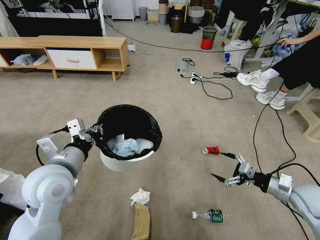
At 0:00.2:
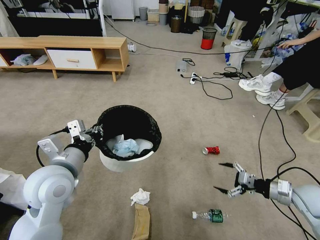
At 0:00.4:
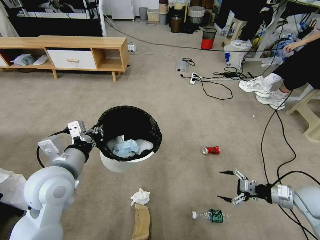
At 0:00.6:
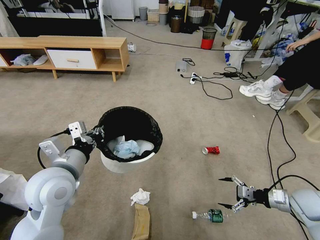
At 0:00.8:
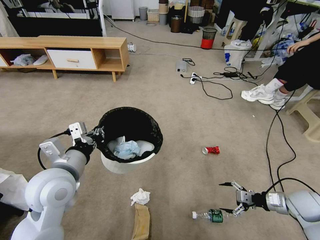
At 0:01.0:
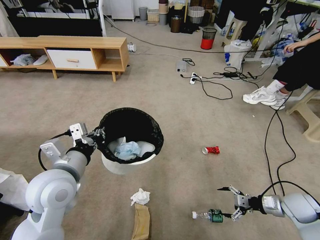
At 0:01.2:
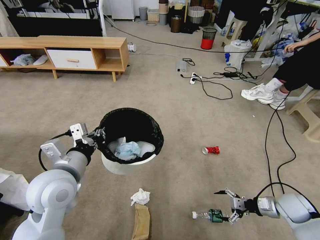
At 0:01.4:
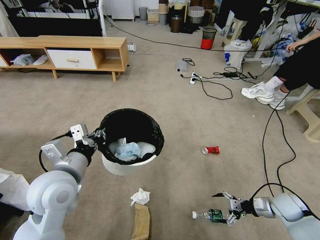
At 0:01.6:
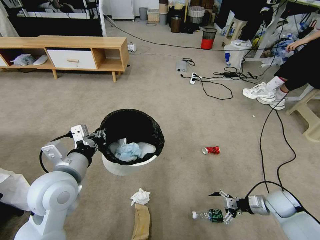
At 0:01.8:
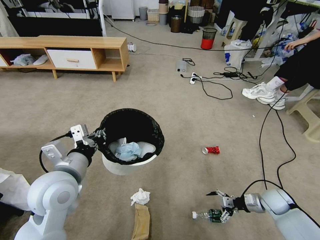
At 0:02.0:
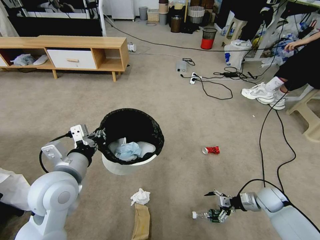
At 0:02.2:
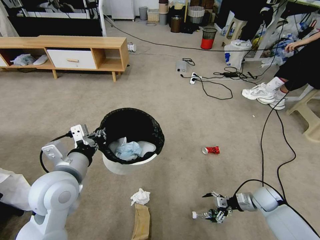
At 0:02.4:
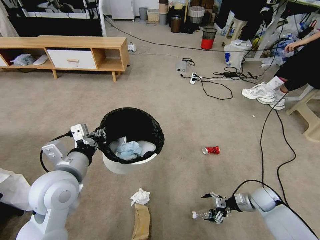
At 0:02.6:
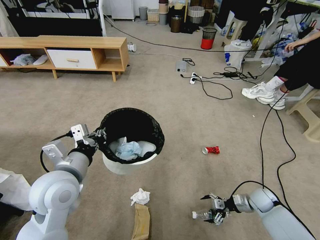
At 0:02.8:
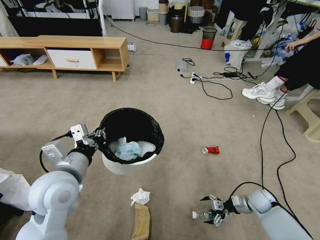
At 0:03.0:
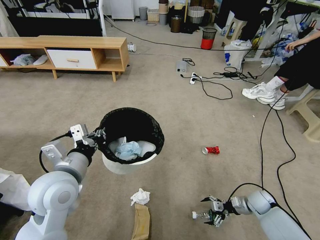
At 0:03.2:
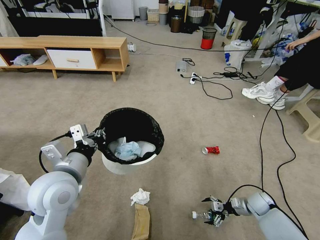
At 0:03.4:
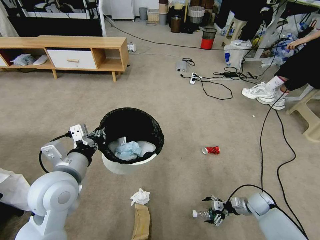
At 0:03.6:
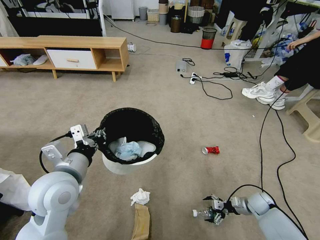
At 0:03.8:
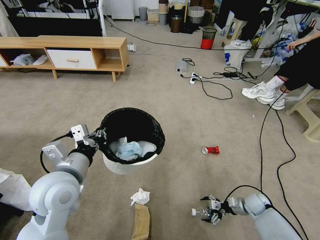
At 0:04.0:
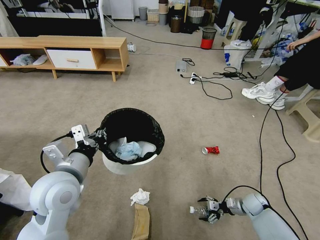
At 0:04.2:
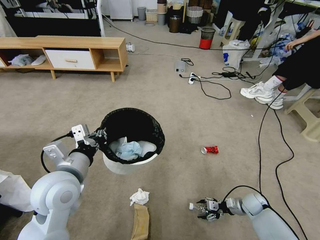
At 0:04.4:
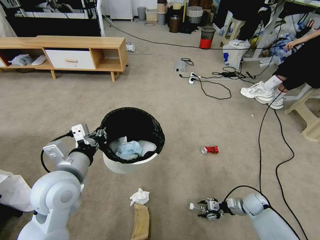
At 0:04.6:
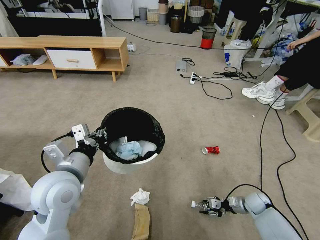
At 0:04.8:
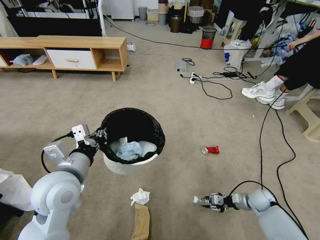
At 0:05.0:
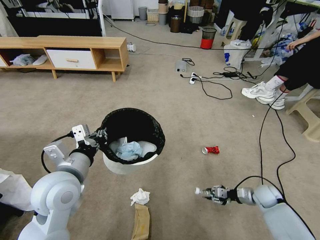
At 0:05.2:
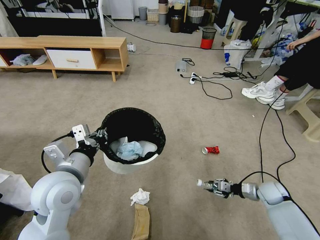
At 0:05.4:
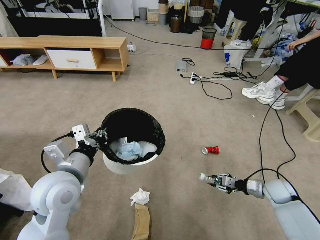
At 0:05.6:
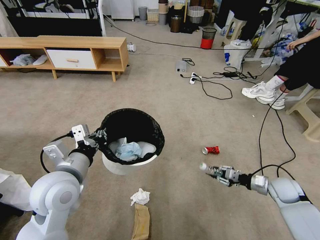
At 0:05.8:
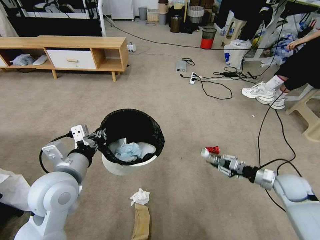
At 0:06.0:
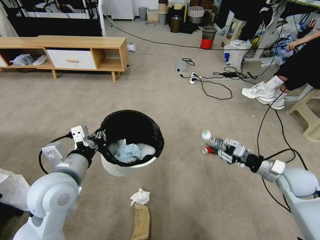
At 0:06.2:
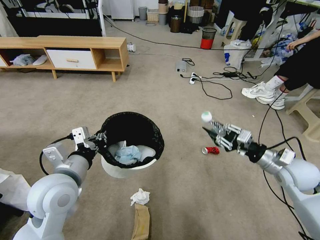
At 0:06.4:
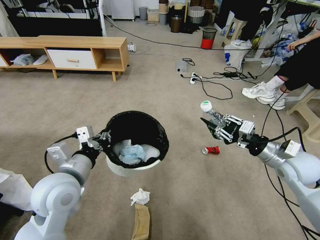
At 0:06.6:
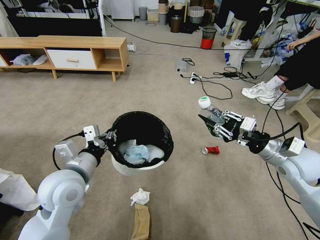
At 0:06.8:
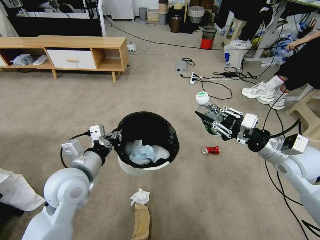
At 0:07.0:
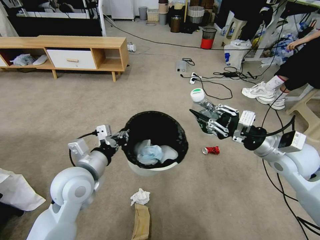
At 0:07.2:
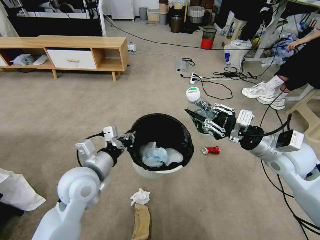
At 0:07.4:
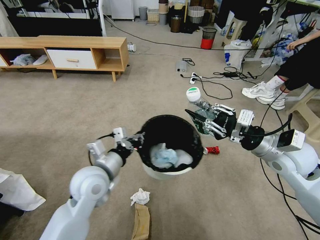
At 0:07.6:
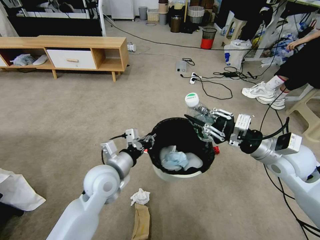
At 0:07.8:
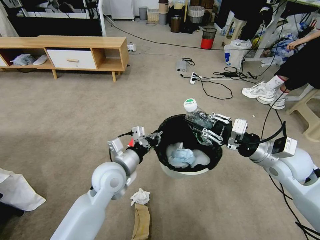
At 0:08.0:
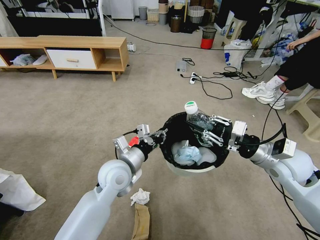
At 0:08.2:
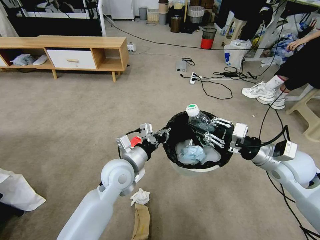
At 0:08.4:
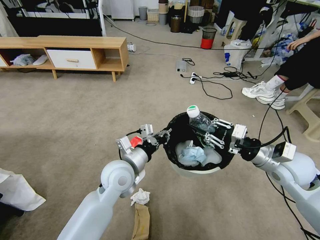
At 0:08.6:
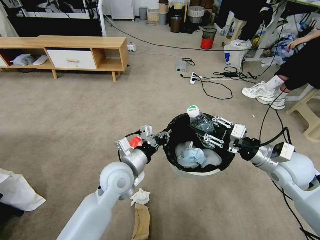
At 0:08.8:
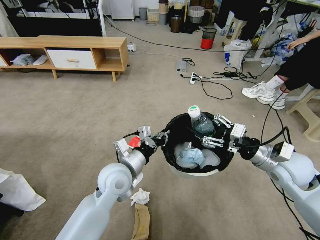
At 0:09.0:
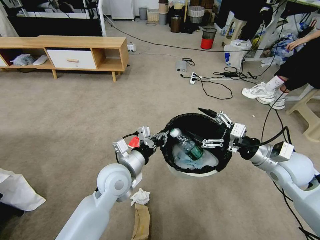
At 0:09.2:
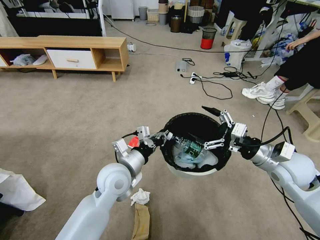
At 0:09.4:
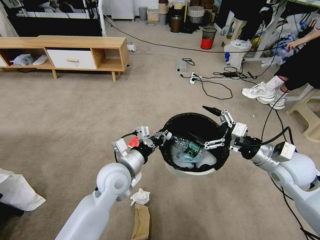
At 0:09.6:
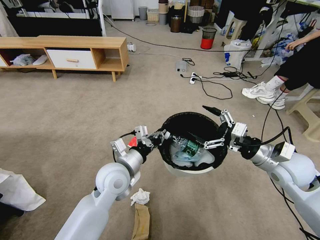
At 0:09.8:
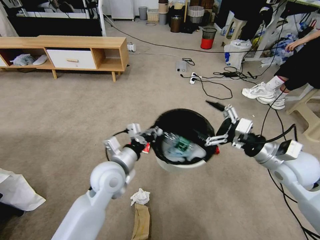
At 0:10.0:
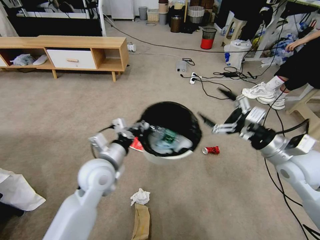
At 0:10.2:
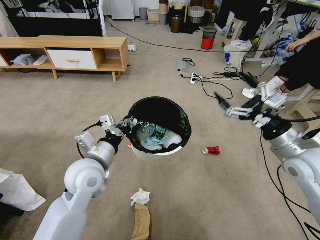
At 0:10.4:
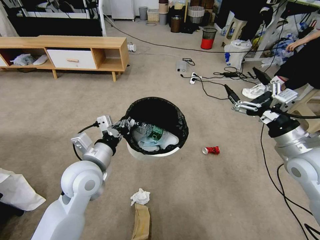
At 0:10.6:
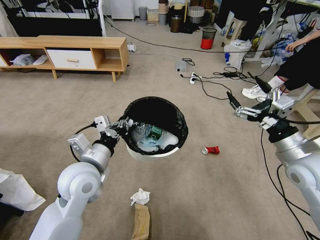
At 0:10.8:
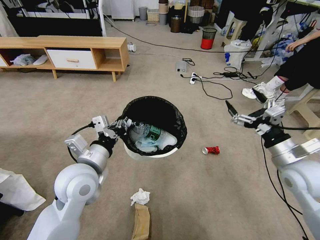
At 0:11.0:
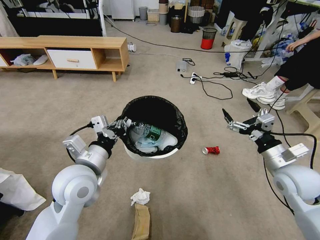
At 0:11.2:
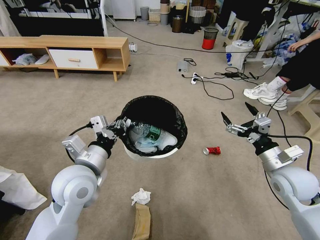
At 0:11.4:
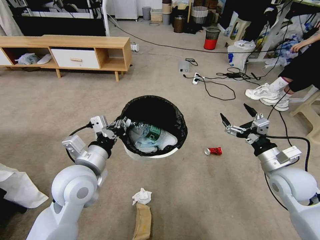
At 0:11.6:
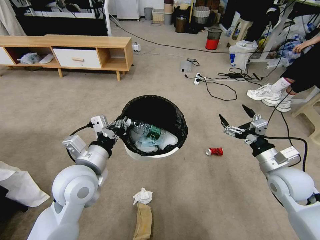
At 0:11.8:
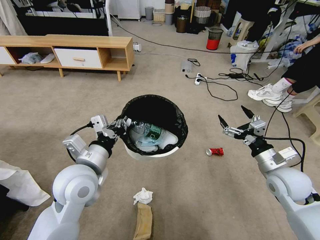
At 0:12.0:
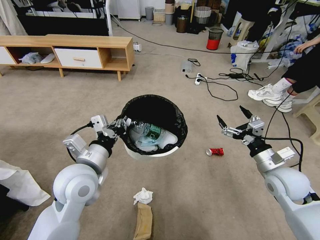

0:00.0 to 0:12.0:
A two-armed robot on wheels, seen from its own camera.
Task of the whole recording: Pick up the trash bin and place the garbage on the floor into it.
0:00.0 to 0:01.6: The right gripper travels downward by about 15 cm.
0:01.6 to 0:03.0: The right gripper goes about 5 cm downward.
0:03.0 to 0:04.4: The right gripper closes up.
0:04.4 to 0:06.0: The right gripper travels upward by about 25 cm.
0:06.0 to 0:07.6: The left gripper is displaced to the right, downward and forward by approximately 10 cm; the right gripper shifts about 15 cm upward and to the left.
0:07.6 to 0:09.0: The right gripper opens.
0:09.0 to 0:10.4: The left gripper shifts about 5 cm to the left. The right gripper changes place by approximately 5 cm.
0:10.4 to 0:12.0: The right gripper moves downward, approximately 10 cm.

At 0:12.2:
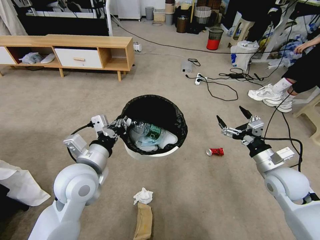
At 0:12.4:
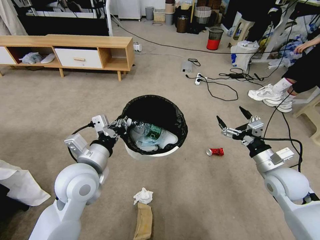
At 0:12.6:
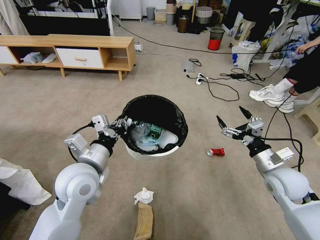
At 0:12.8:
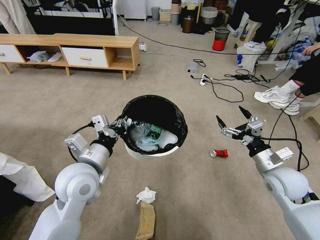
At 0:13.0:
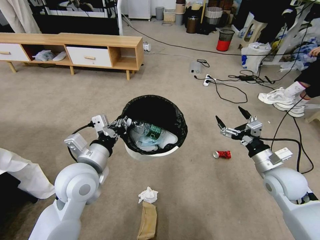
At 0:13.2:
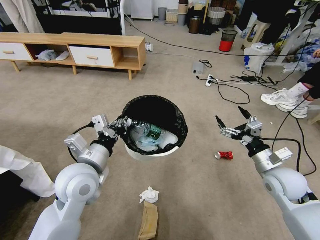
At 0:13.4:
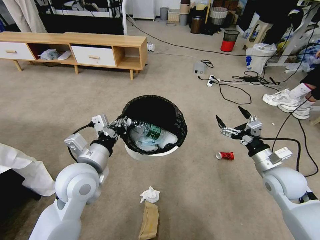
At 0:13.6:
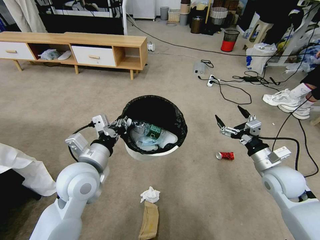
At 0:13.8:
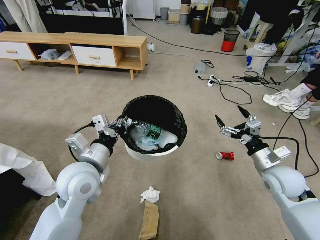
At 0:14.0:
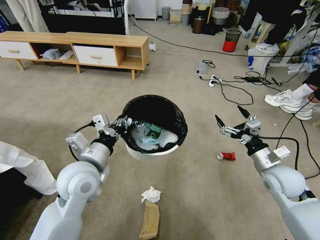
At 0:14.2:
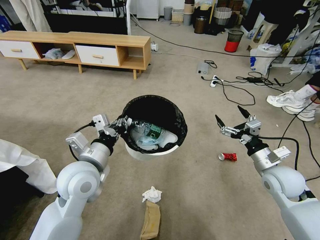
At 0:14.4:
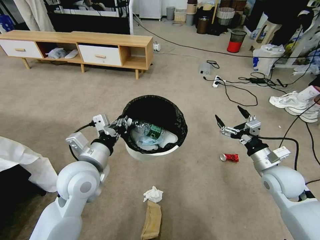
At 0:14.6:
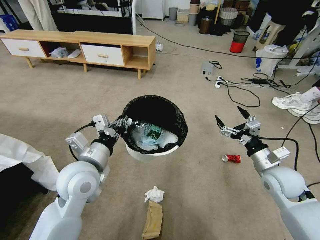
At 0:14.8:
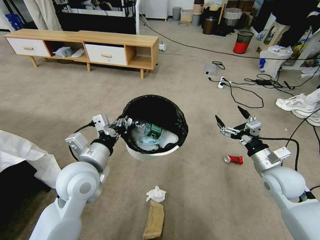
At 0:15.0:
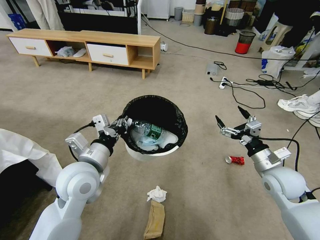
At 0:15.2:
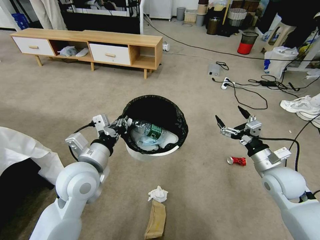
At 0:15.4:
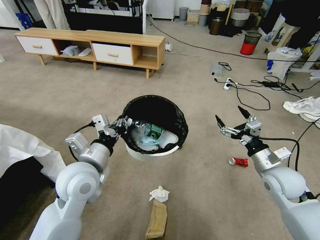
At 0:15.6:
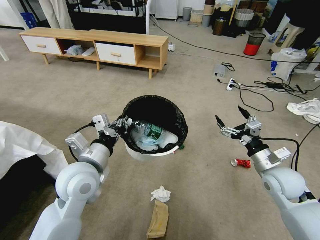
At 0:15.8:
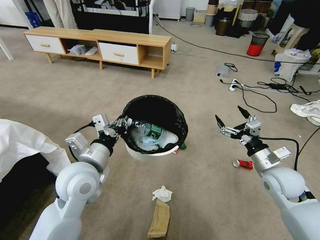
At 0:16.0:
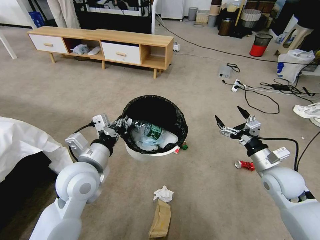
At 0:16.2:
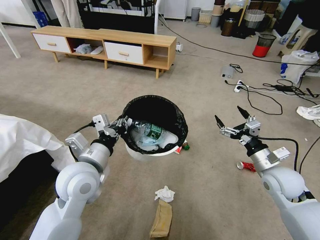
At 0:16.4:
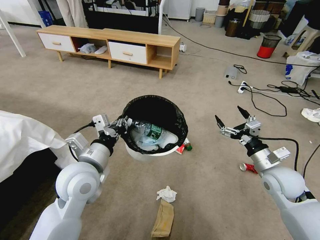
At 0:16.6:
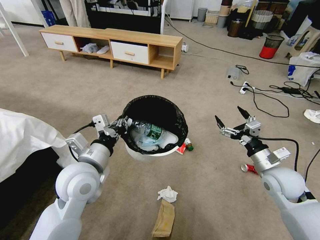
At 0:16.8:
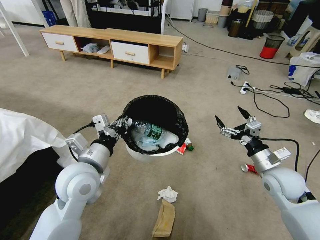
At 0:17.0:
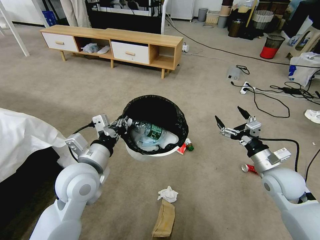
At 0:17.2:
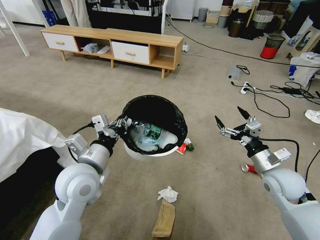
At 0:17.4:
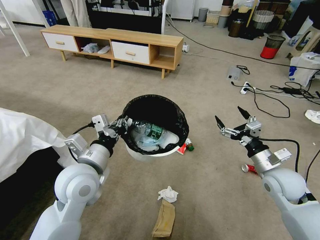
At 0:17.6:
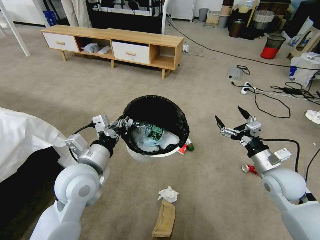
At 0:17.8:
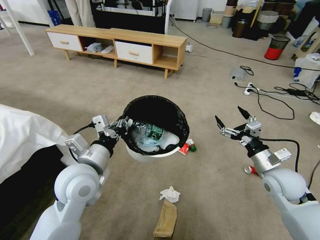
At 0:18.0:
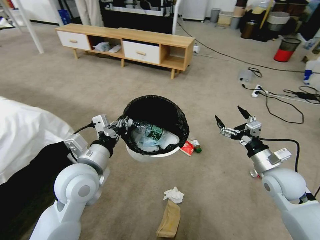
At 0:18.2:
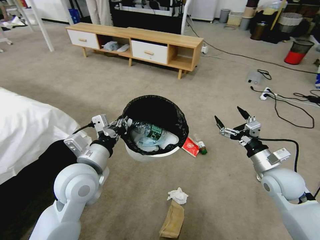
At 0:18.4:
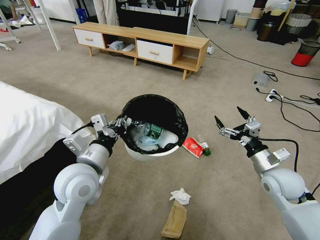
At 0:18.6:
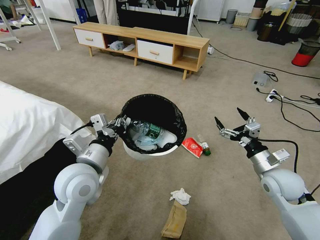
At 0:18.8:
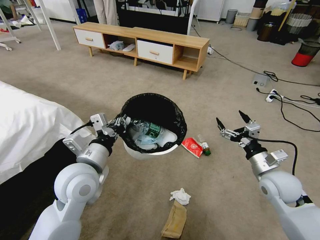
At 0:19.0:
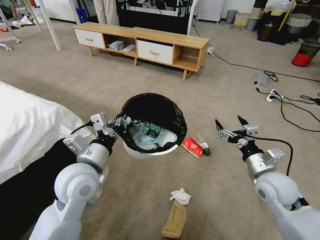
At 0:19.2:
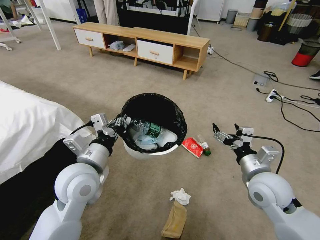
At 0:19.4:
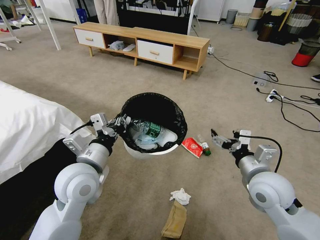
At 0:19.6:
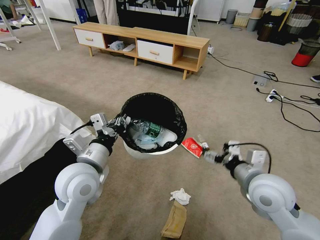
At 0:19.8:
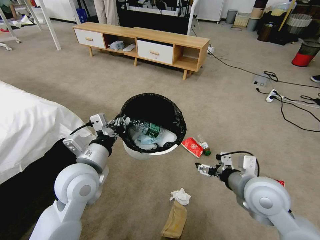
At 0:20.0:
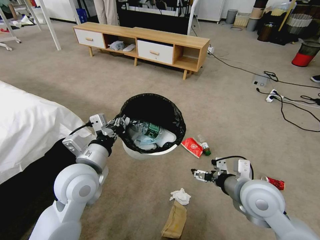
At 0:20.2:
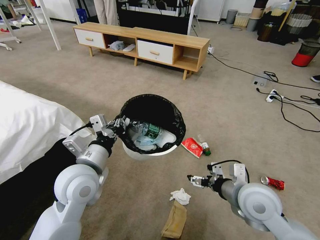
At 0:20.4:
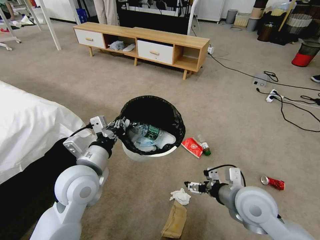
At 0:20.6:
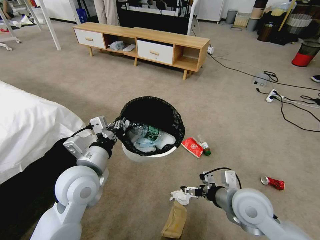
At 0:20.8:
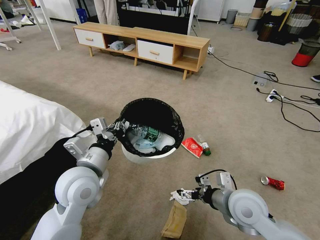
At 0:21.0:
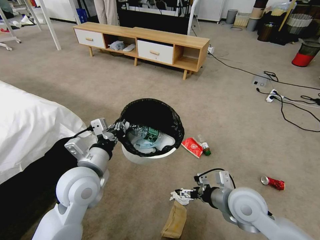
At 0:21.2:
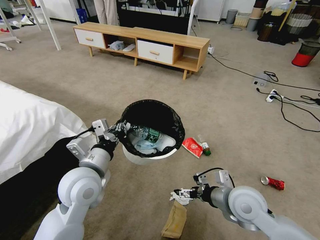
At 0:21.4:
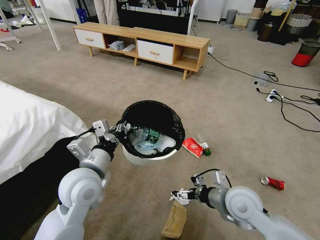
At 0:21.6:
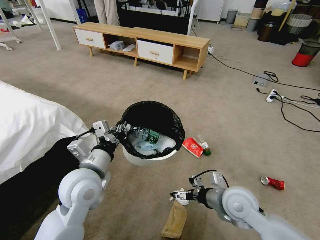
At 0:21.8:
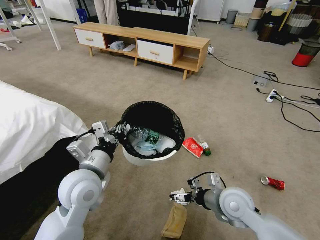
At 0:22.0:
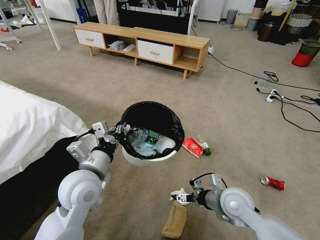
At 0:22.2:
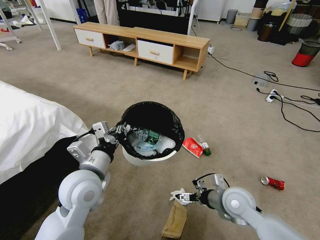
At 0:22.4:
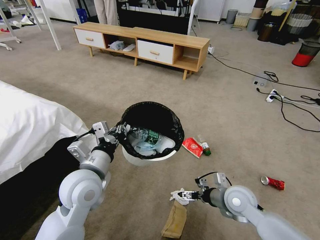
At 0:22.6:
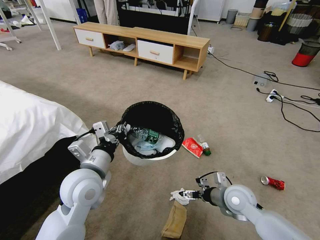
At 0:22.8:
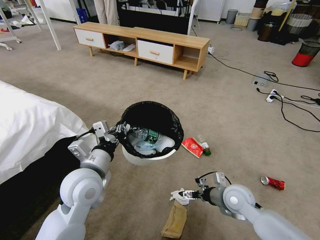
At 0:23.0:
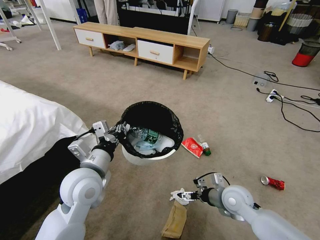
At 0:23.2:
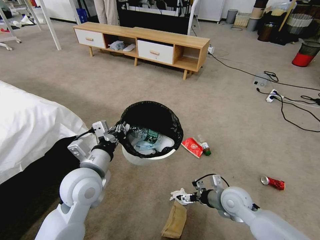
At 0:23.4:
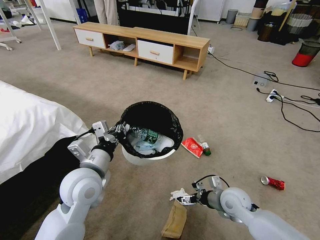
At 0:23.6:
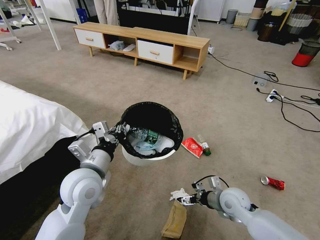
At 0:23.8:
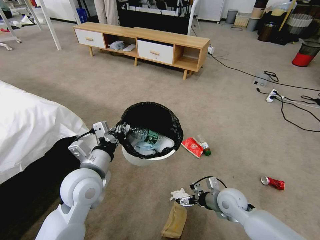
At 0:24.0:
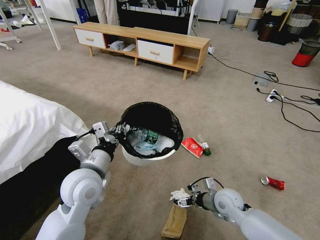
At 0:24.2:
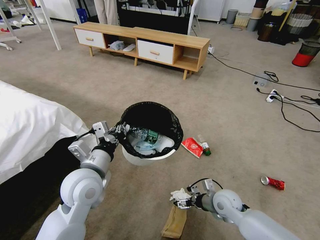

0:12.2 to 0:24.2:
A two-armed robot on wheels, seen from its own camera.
Task of the whole recording: Pick up the trash bin and place the garbage on the floor into it.
0:18.2 to 0:19.8: The right gripper shifts some 10 cm to the left and backward.
0:19.8 to 0:21.2: The right gripper moves downward, some 5 cm.
0:21.2 to 0:22.6: The right gripper heads downward, covering roughly 5 cm.
0:22.6 to 0:24.2: The right gripper is displaced downward by roughly 5 cm.
